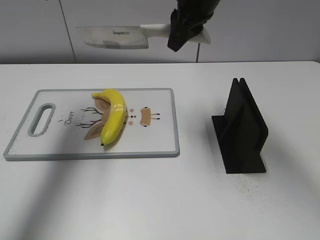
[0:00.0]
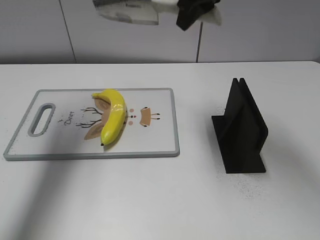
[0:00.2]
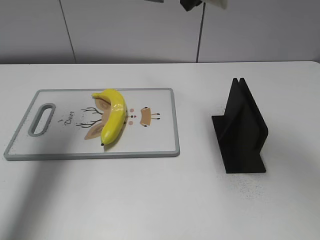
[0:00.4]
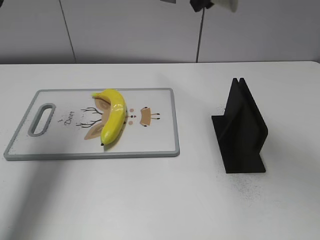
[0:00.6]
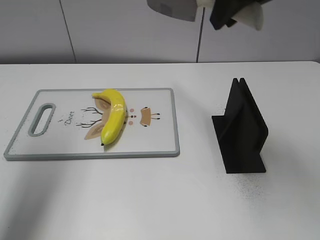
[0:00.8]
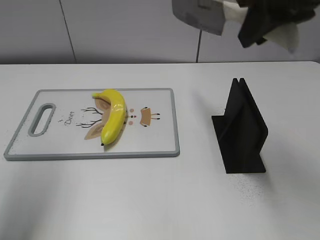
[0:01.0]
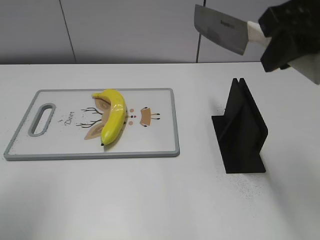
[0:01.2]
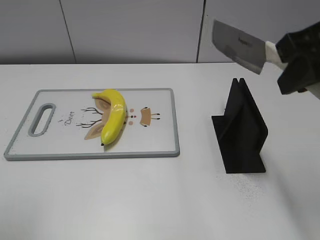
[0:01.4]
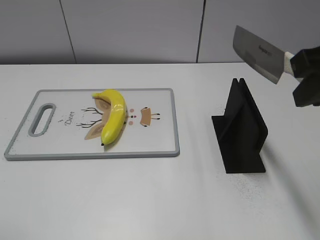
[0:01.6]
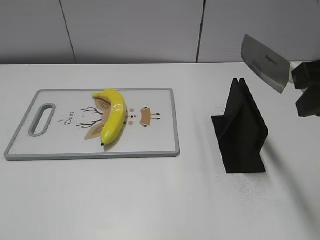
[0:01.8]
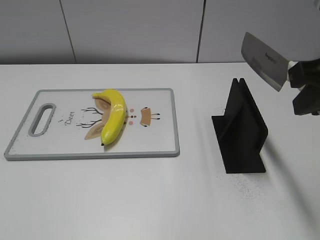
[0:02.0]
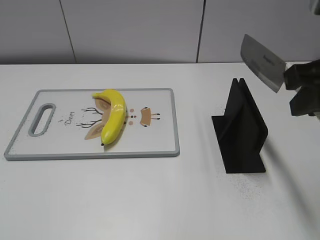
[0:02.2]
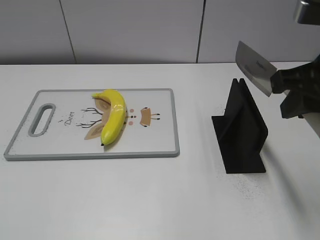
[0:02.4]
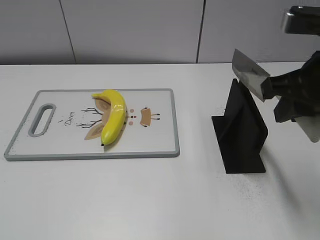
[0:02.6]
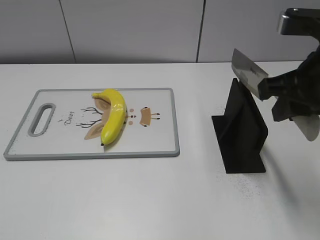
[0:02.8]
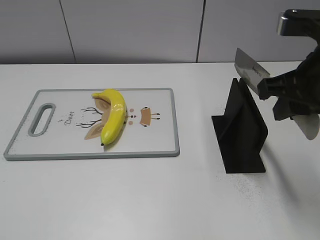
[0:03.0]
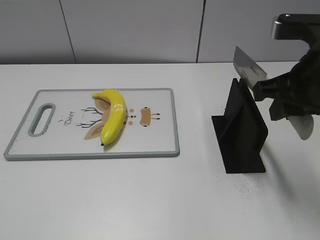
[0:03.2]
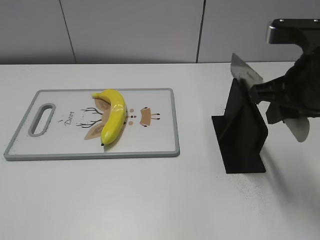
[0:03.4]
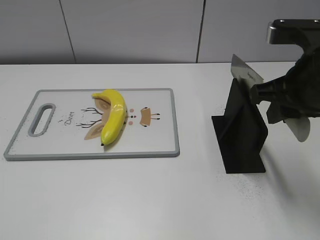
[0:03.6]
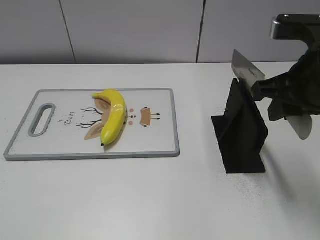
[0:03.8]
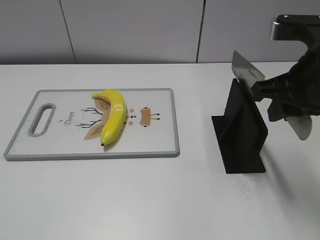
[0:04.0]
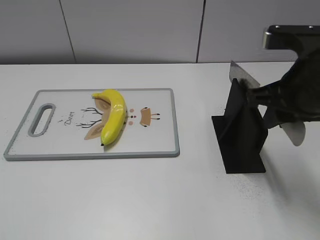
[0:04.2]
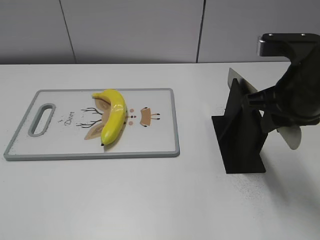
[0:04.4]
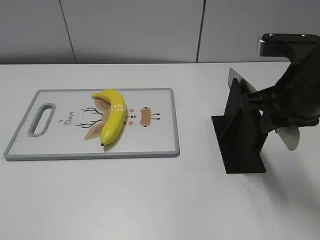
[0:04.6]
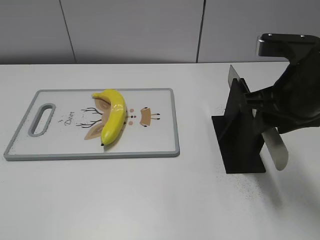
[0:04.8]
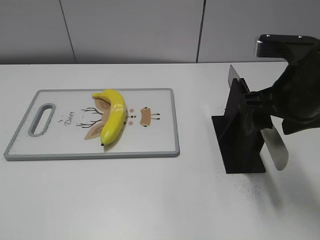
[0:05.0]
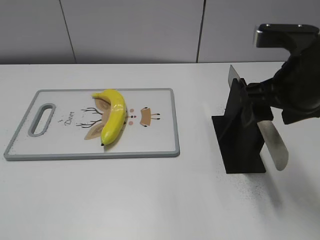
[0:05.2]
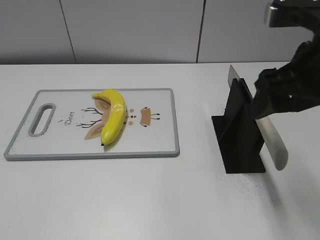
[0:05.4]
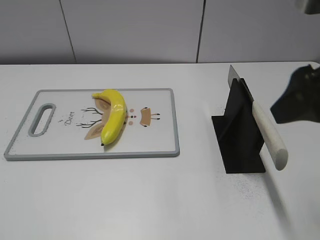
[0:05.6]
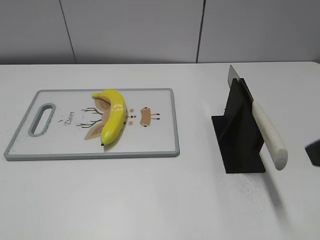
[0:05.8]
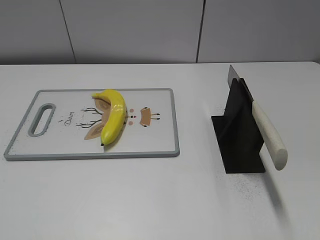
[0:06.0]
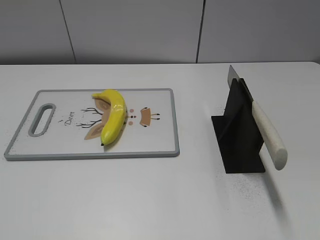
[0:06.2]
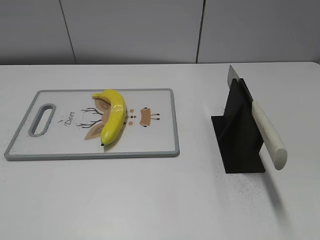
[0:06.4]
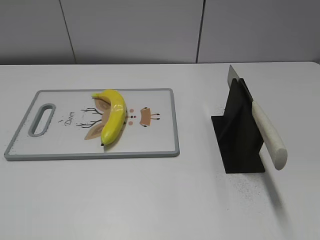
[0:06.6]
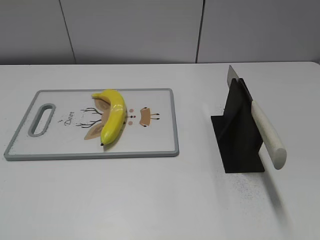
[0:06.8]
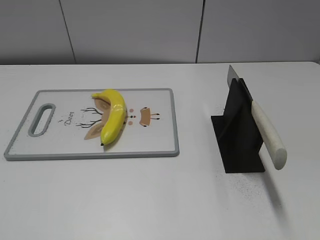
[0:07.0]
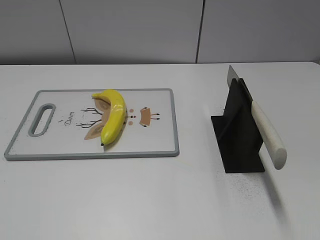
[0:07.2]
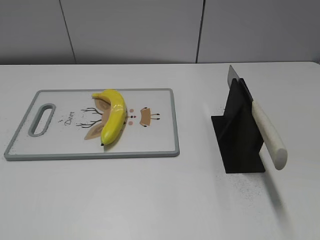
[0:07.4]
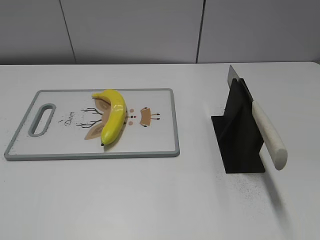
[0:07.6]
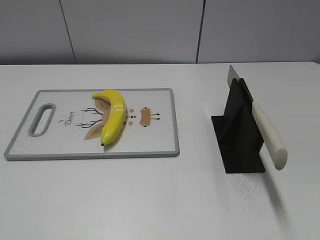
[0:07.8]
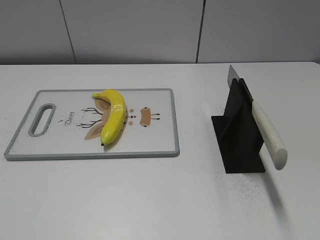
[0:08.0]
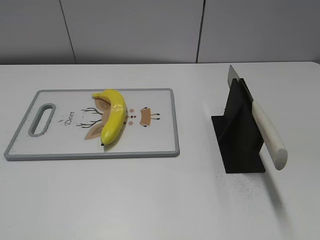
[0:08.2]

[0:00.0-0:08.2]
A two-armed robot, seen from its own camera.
Task of the whole recording: cut plastic banana.
Step, 0:01.0 to 0:02.2: Lift the knife with your right hand.
Step, 0:02.4 to 0:08.2: Place the knife on the storage rack with your right hand.
0:00.0 to 0:01.6: The right gripper travels backward and to the right by about 25 cm; the left gripper is displaced backward by some 30 cm.
0:01.6 to 0:03.2: The right gripper heads downward, covering roughly 5 cm.
0:03.2 to 0:05.0: The right gripper opens up.
0:05.0 to 0:06.6: The right gripper travels backward and to the right by roughly 25 cm.
